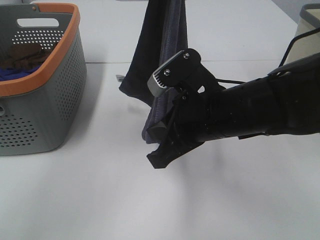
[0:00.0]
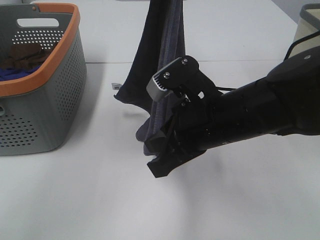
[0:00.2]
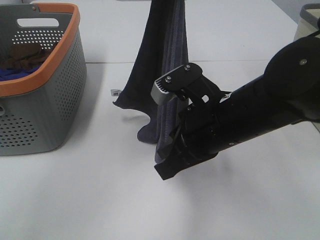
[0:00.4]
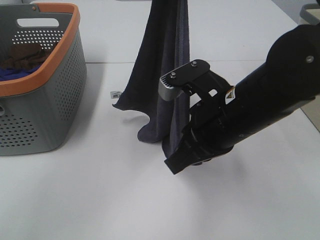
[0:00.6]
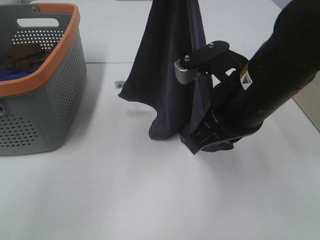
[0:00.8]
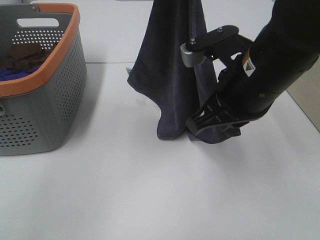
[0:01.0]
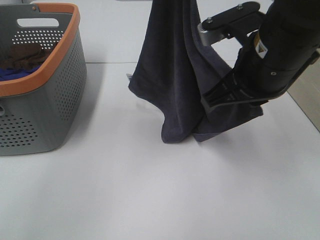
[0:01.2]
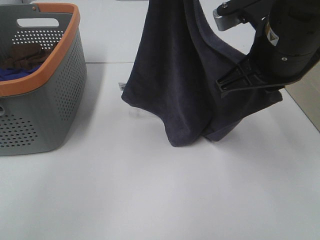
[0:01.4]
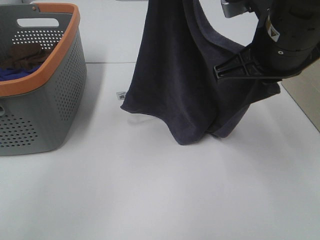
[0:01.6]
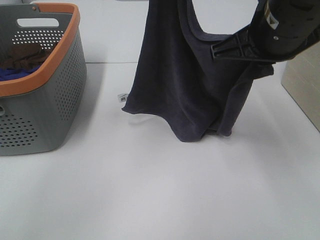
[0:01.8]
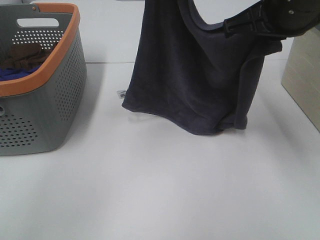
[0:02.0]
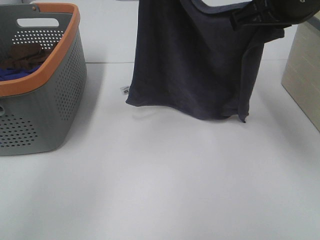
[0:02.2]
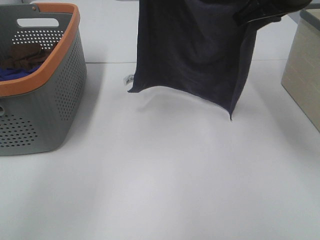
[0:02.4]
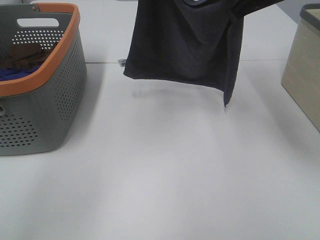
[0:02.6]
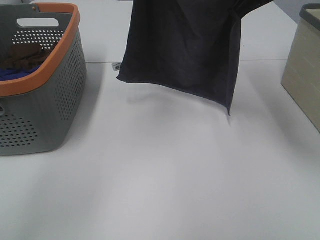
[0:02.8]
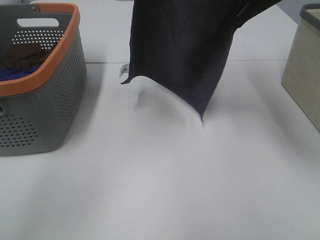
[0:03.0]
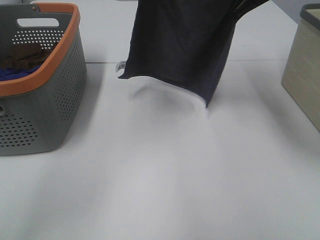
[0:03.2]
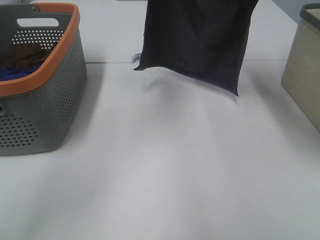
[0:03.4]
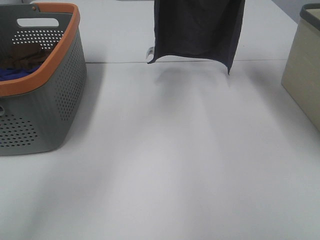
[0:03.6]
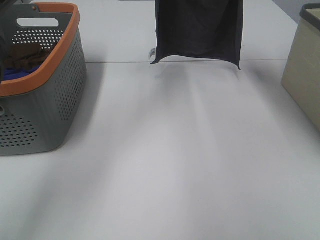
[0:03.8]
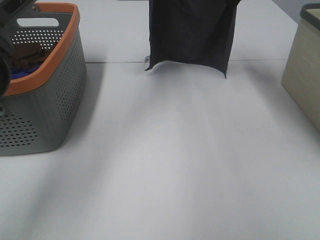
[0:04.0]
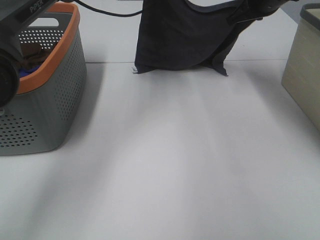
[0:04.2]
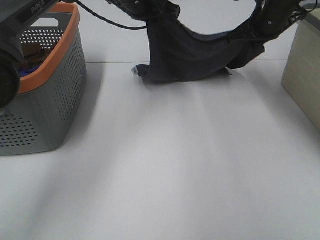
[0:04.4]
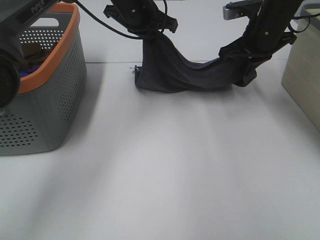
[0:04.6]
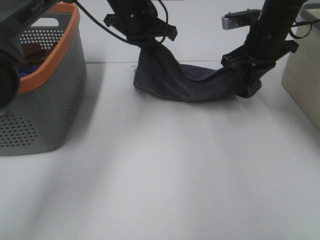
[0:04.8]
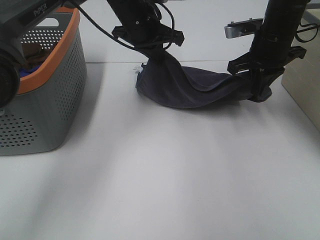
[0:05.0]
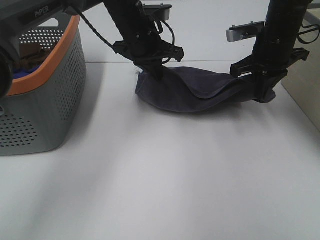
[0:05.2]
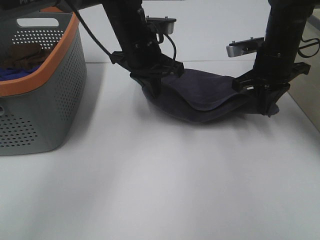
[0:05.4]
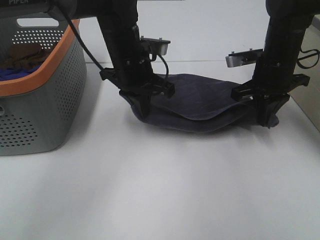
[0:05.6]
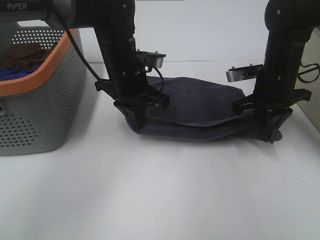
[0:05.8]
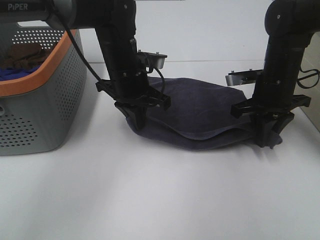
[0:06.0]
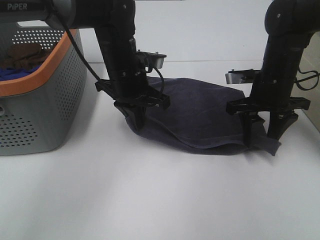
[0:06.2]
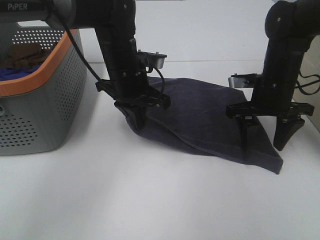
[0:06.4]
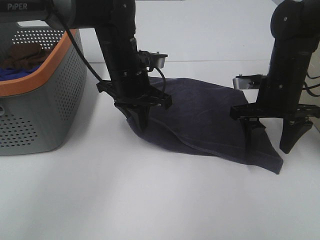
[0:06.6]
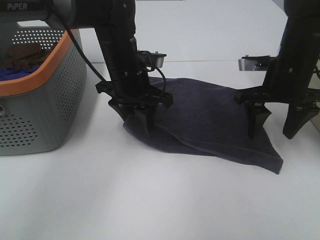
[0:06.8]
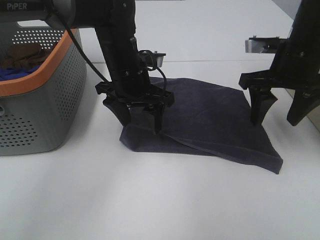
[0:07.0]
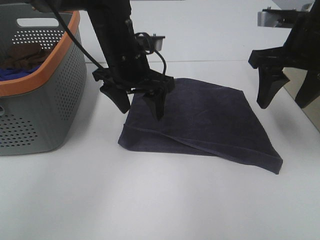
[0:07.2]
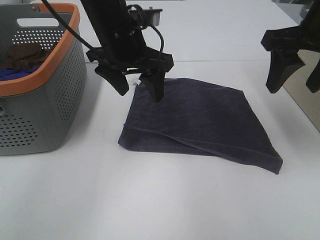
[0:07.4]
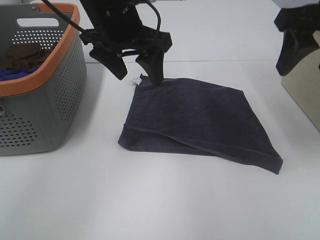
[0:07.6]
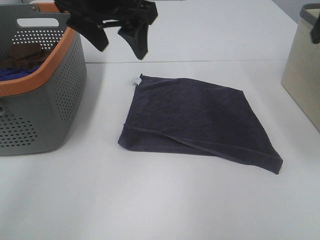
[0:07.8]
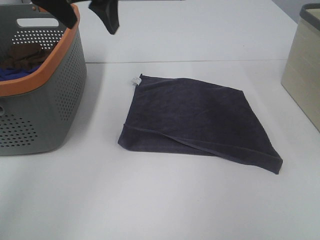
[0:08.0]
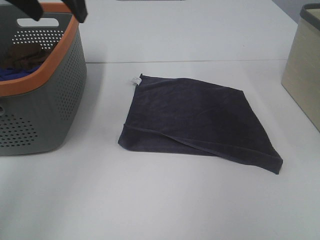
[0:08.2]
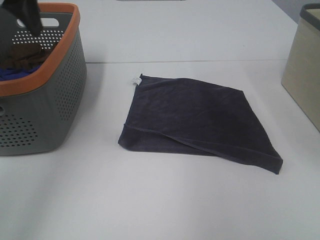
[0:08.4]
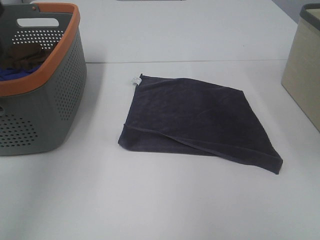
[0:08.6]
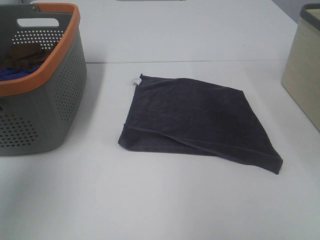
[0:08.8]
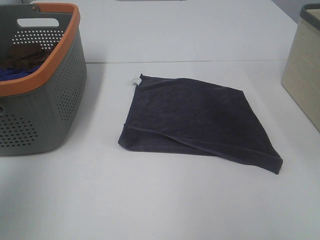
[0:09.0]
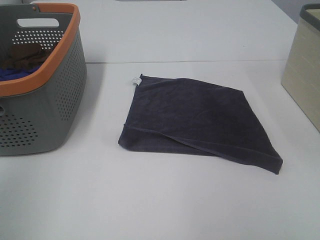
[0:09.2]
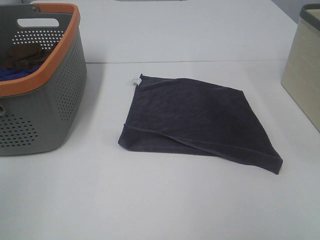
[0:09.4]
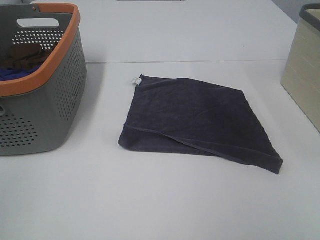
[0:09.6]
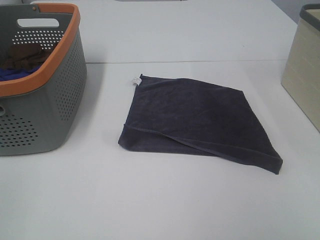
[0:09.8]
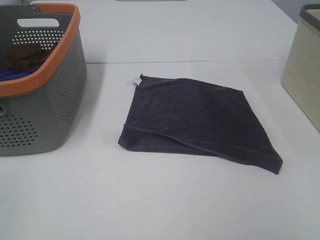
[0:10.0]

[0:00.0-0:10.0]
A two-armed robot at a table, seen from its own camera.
Task of the whole recording: Remove the towel and place it.
Step, 0.0 to 1.6 s: Right hand: spread the grey towel flat on the table.
Step, 0.0 to 2.0 s: Left hand: spread the grey towel flat on the table.
0.0 to 1.4 s: The right gripper travels upward by roughly 10 cm.
1.4 to 2.8 s: The right gripper is displaced forward and upward by roughly 10 cm; the left gripper moves approximately 5 cm.
2.8 to 4.2 s: The right gripper moves forward and downward, approximately 20 cm. Meanwhile the left gripper goes roughly 15 cm downward and forward.
4.2 to 5.8 s: Both grippers travel together backward and downward, about 15 cm.
5.8 to 7.2 s: The right gripper is displaced upward and backward by some 15 cm, and opens its fingers. Meanwhile the left gripper opens its fingers.
7.2 to 8.6 s: The right gripper shifts about 15 cm upward and backward. Meanwhile the left gripper goes roughly 25 cm to the left, upward and backward.
8.6 to 10.0 s: Both grippers travel together backward, some 25 cm.

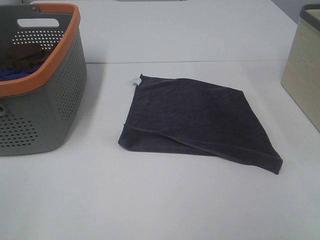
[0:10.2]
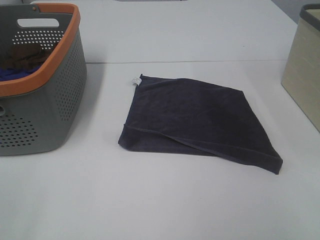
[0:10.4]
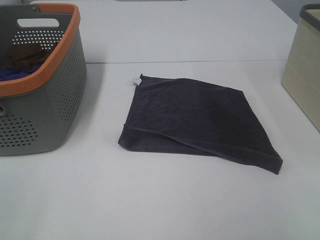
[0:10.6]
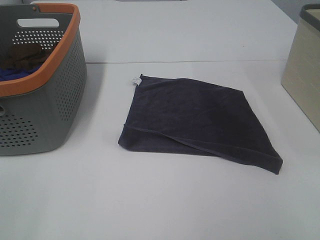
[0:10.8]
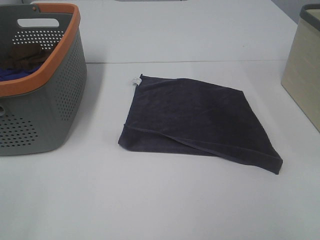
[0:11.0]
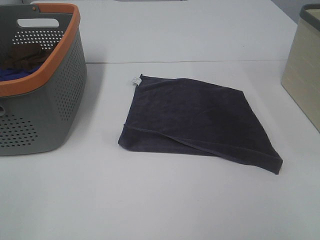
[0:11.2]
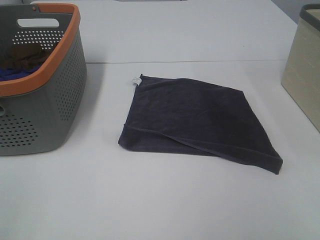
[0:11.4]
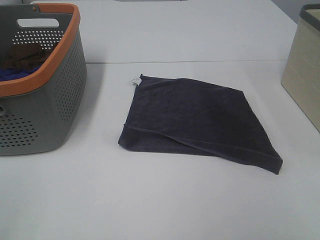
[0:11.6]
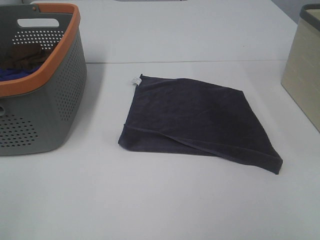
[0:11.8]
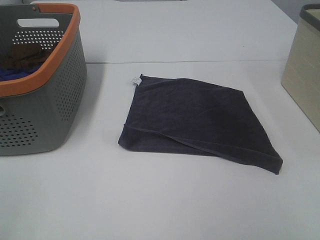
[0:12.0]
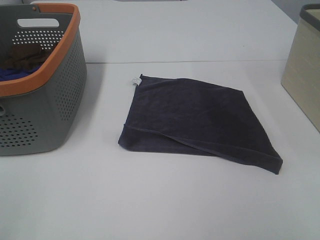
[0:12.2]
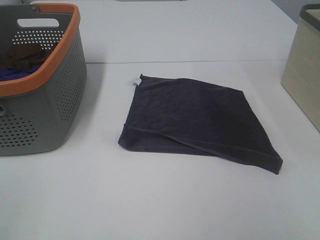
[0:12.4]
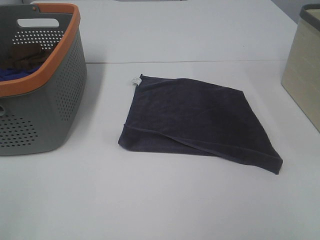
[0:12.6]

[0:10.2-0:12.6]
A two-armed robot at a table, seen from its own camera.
Task of the whole recording: Remove the towel and place it.
11.4 to 12.6 s: Both grippers stay about where they are.

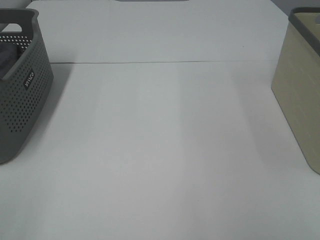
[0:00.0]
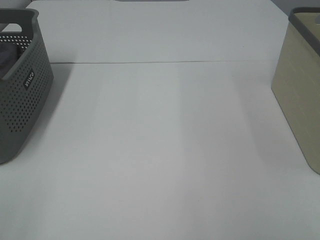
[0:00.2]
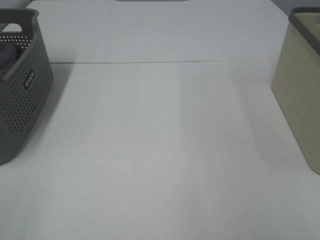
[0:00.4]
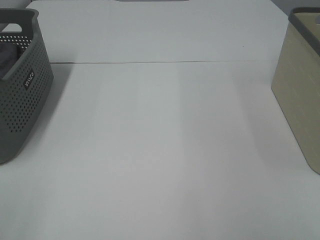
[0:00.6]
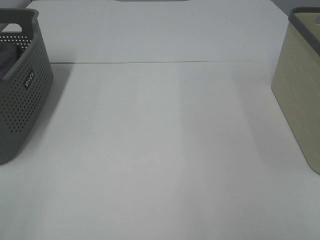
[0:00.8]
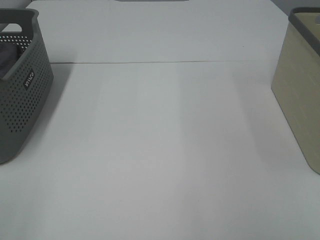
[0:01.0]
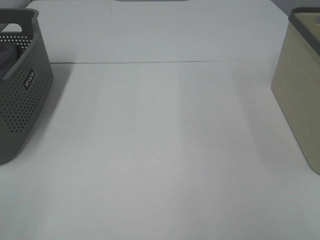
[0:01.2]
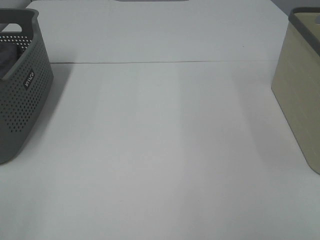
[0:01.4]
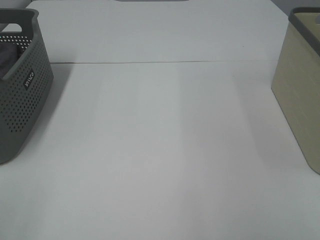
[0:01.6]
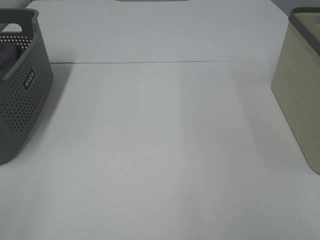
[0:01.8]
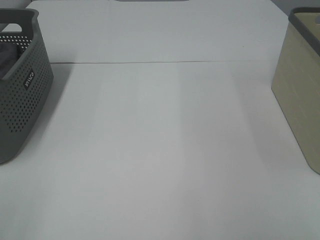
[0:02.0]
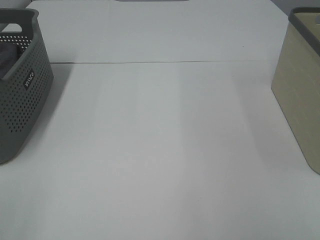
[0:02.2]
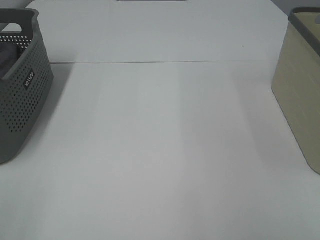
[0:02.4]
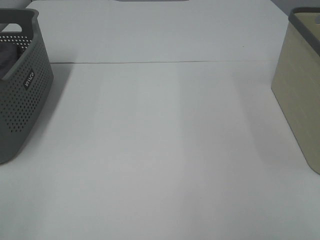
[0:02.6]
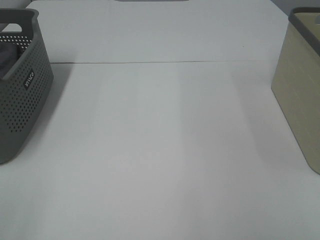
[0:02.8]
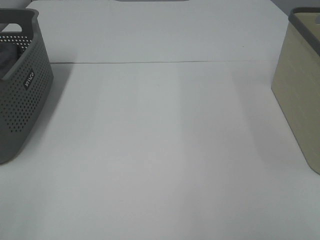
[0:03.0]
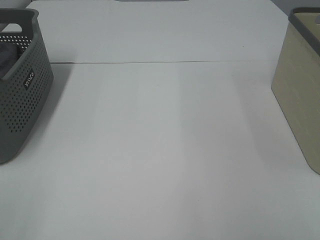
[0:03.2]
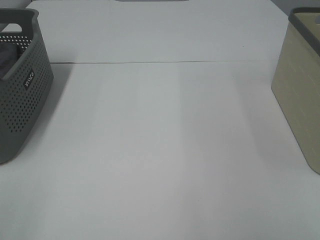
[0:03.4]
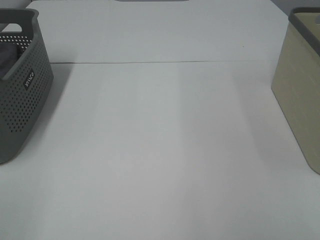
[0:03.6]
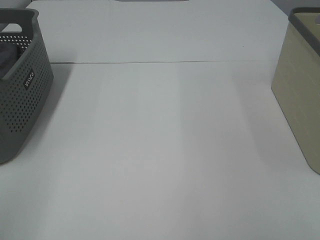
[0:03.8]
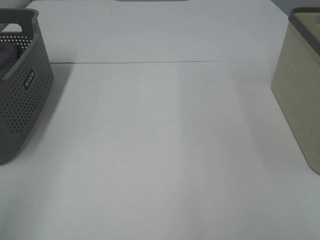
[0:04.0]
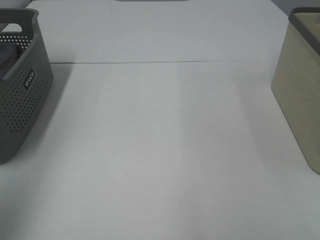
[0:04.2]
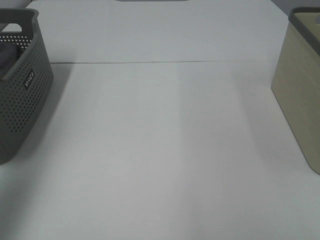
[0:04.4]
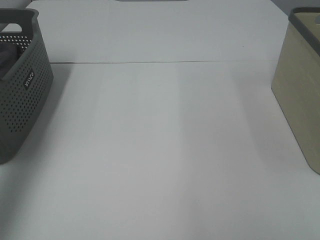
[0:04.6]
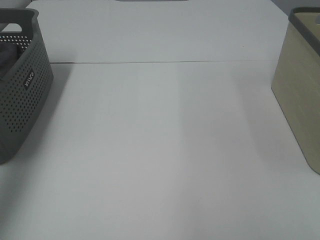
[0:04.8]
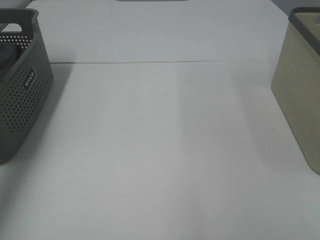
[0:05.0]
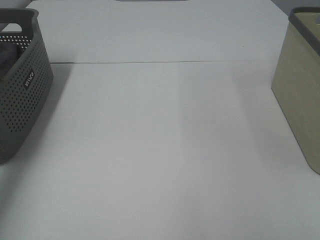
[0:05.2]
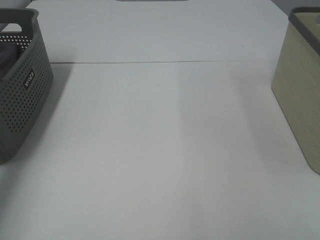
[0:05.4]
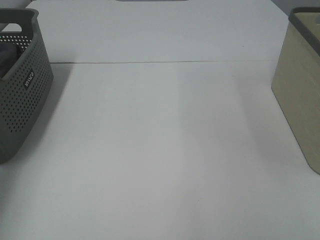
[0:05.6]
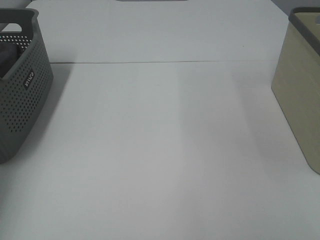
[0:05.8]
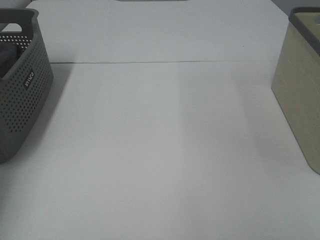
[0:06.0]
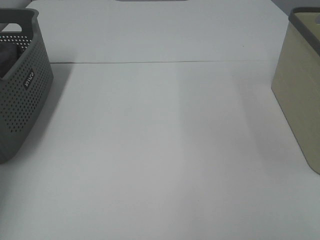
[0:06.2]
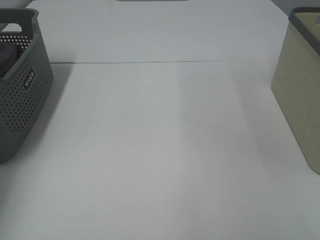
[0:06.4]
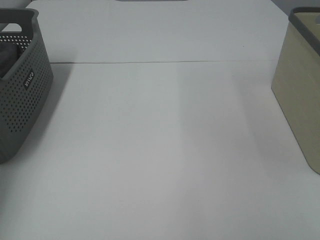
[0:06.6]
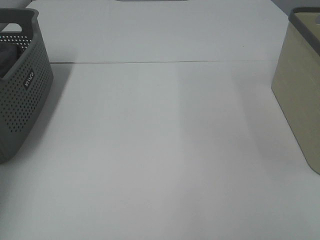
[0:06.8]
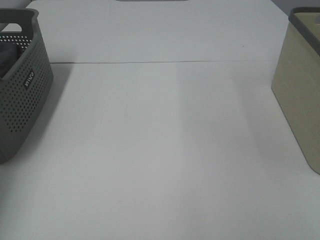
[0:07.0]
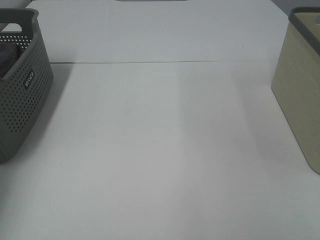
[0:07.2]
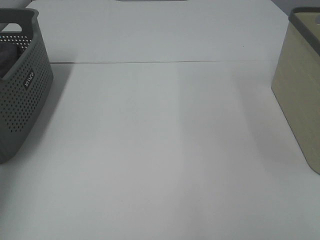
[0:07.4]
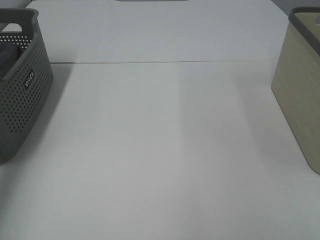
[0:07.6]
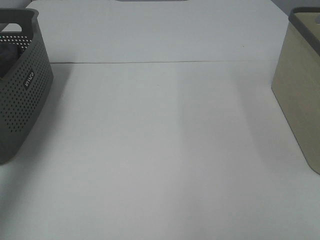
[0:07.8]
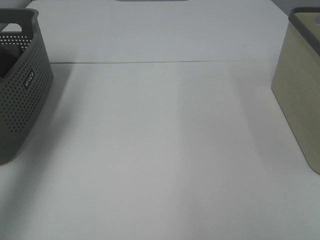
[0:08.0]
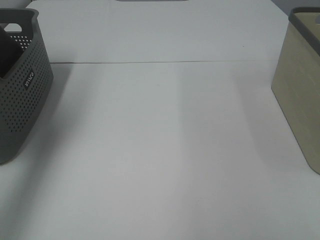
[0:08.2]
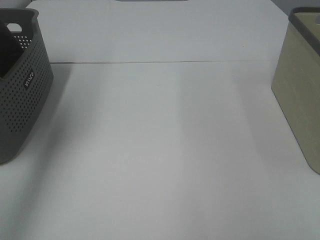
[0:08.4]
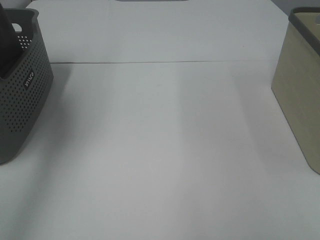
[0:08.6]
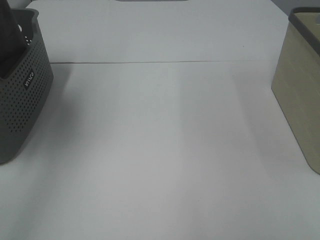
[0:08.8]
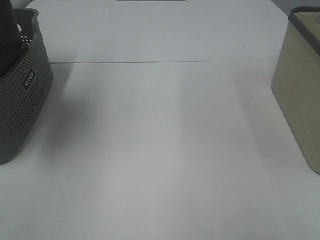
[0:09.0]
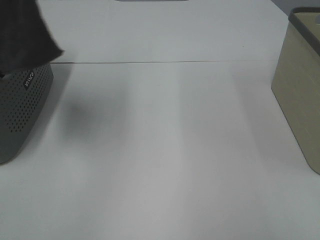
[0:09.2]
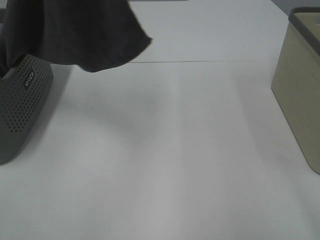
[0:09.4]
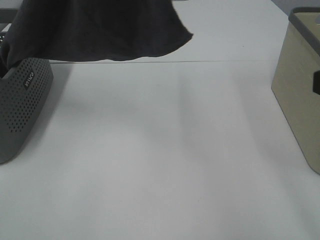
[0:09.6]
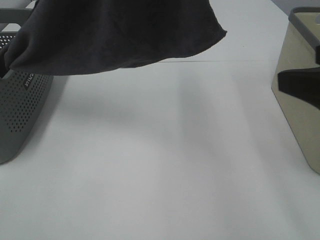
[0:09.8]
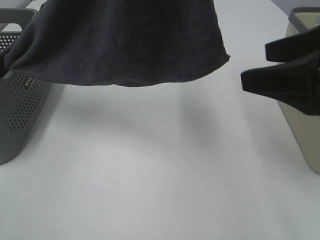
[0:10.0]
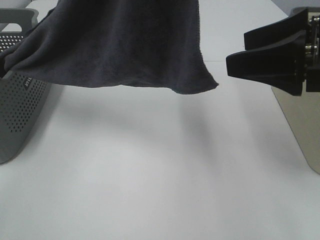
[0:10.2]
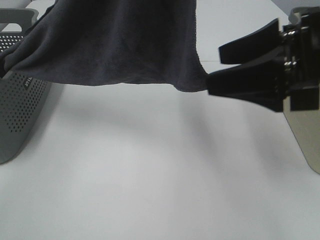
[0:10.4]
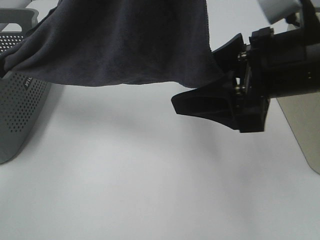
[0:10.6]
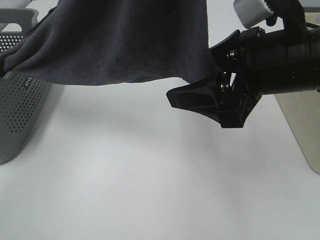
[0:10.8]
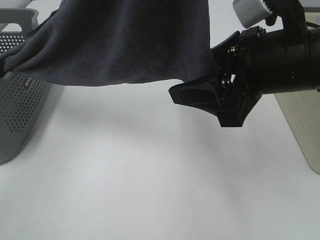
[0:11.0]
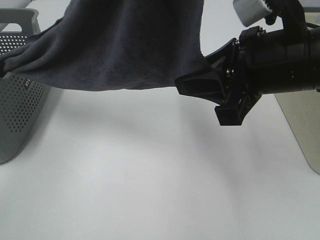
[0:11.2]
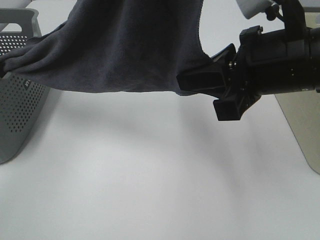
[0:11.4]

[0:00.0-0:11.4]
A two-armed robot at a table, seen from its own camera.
Task of the whole recording: Remove the towel and place it.
0.0 to 2.8 s: Neither gripper changes place.
2.8 to 4.2 s: The left gripper is displaced forward and upward by roughly 20 cm.
4.2 to 5.6 s: The left gripper is displaced forward and downward by some 35 cm.
7.2 to 8.6 s: The left gripper goes about 30 cm upward and to the right.
8.6 to 10.0 s: The left gripper travels to the right by approximately 20 cm, while the right gripper shifts about 20 cm forward.
10.0 to 11.4 s: The right gripper heads to the left, covering approximately 5 cm, and closes up.
